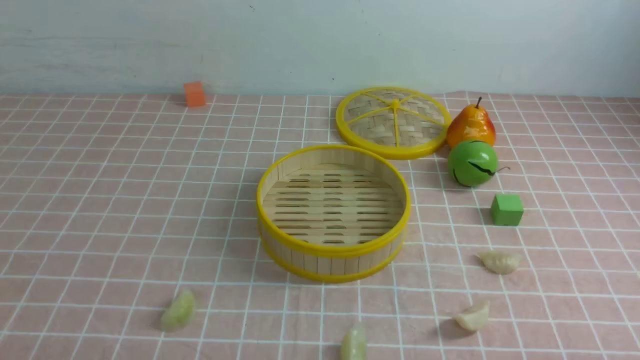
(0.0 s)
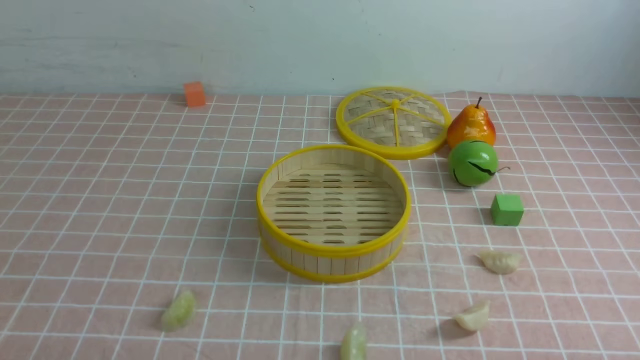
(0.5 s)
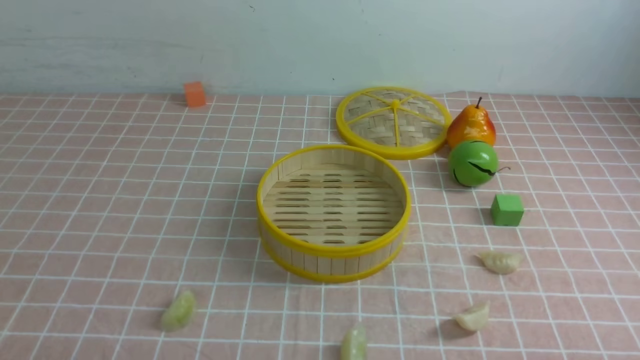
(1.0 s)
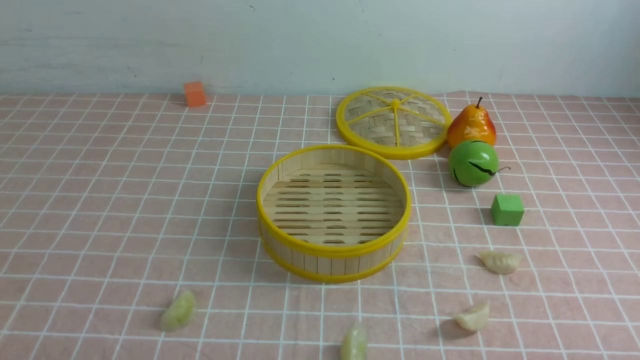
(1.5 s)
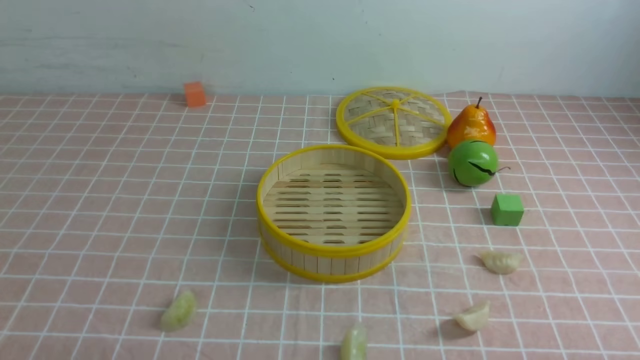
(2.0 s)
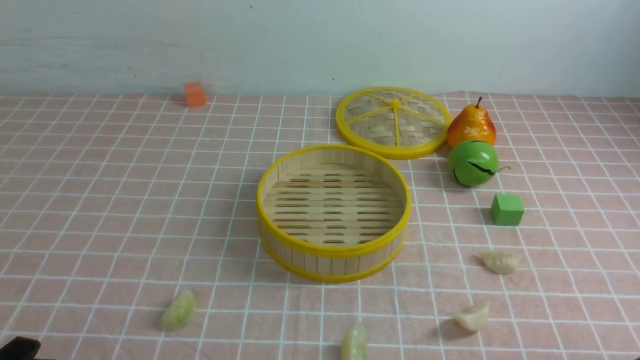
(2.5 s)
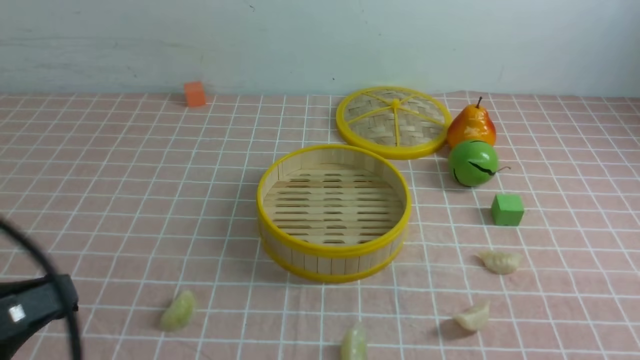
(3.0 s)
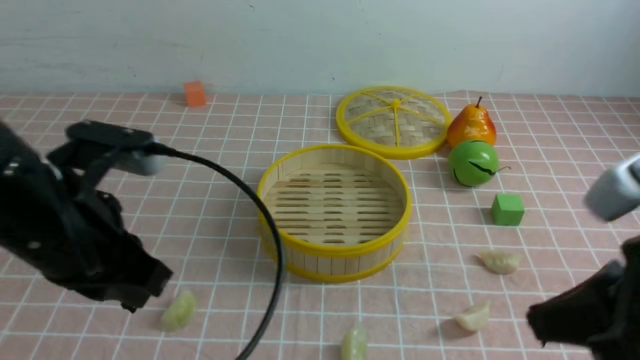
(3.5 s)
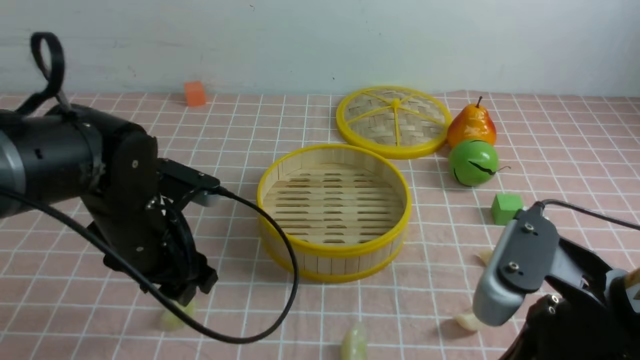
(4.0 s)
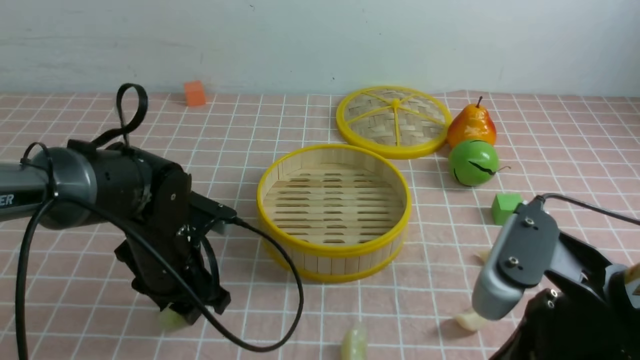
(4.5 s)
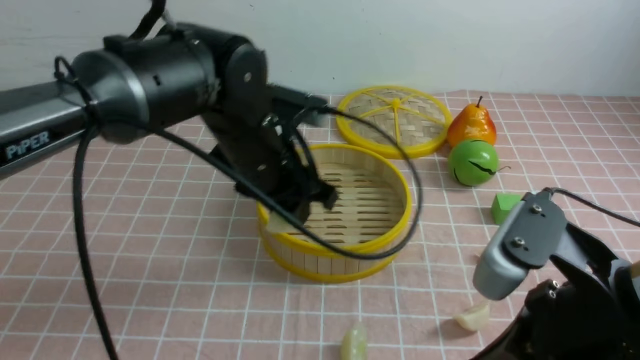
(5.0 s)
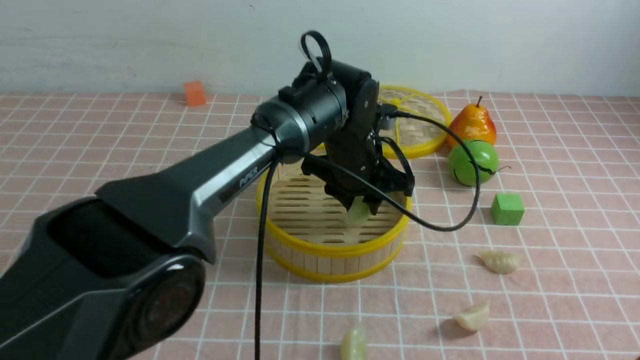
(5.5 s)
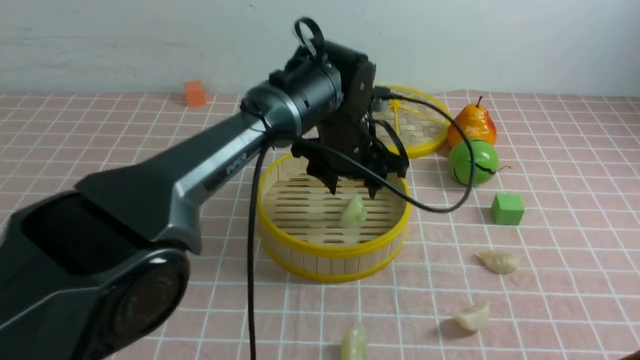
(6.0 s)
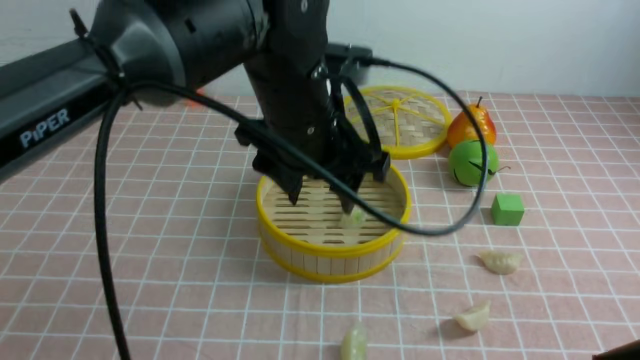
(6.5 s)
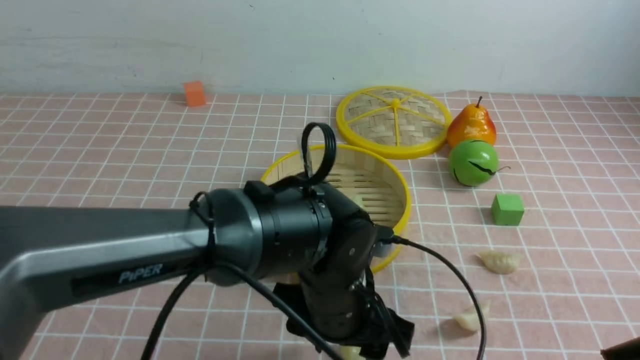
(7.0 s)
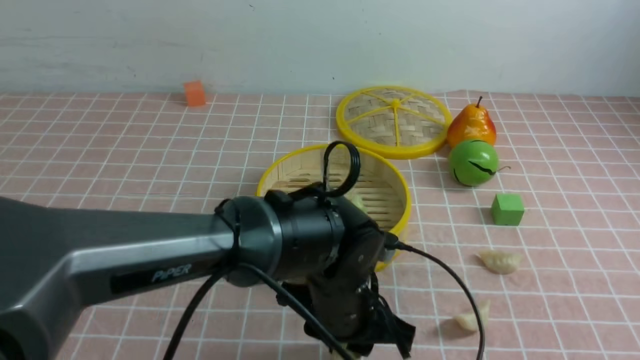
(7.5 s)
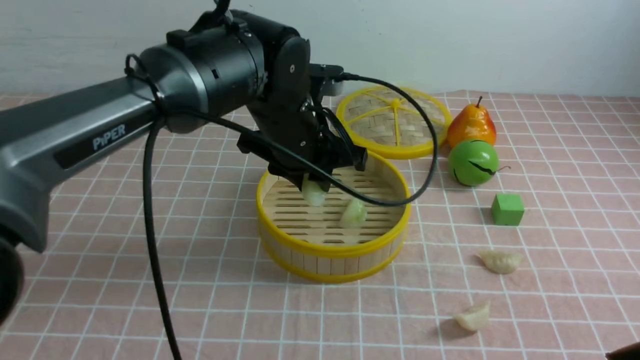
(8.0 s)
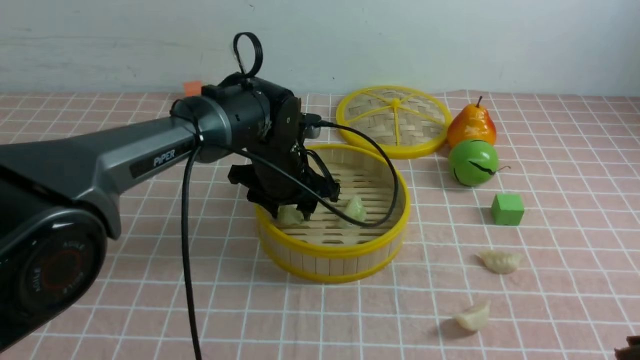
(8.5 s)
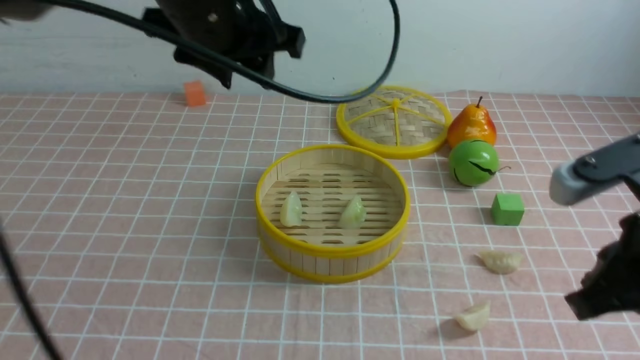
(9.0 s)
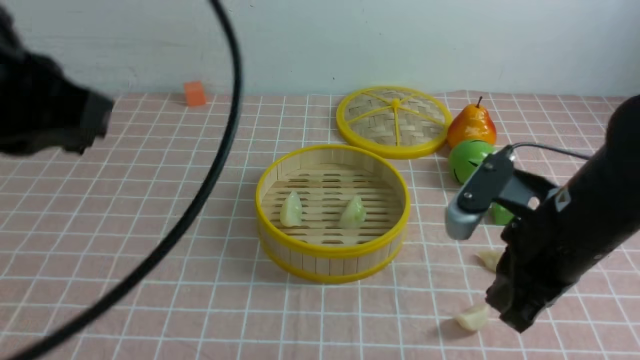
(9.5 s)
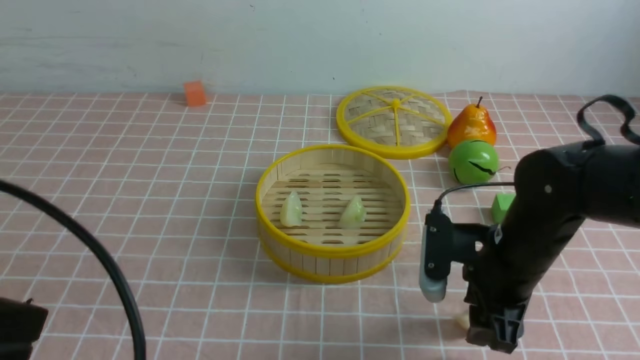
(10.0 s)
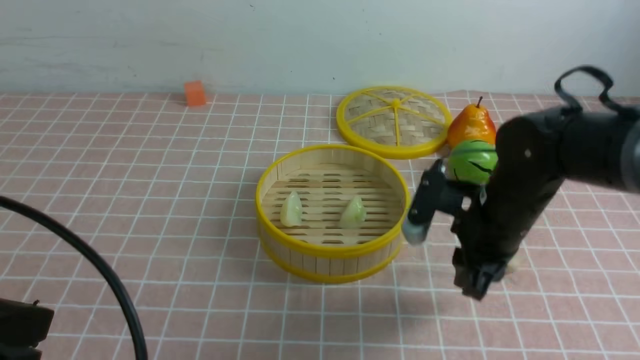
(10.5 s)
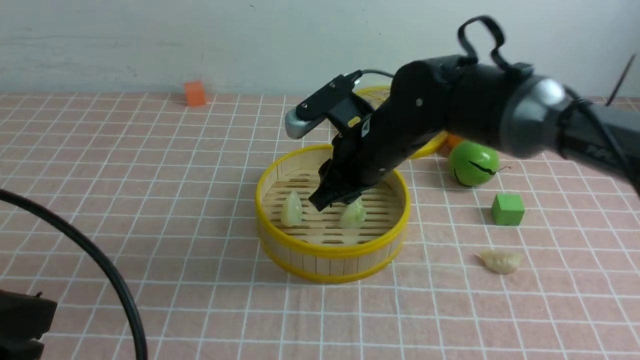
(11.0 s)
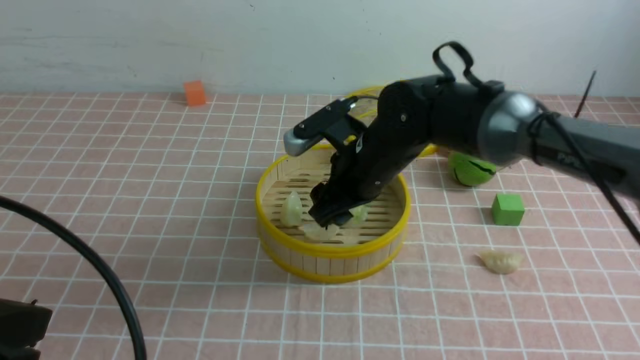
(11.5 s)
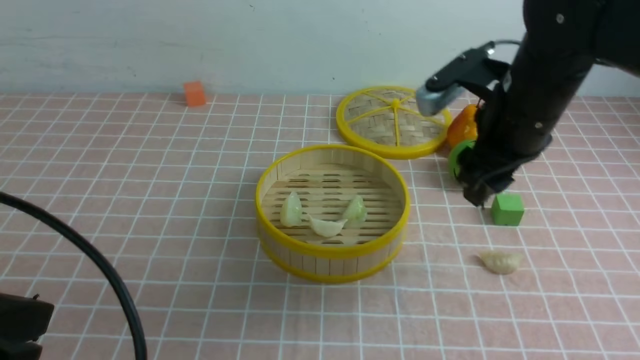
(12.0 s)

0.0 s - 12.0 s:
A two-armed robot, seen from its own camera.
Task of the whole recording: put the dumplings into the steamer on the table with the pink tablecloth.
Step, 0.0 s - 4.5 s: use the left arm to grab a dumpling.
Step, 5.0 s - 6.0 s: use the left arm to put the dumpling into the steamer.
Step, 6.5 s - 7.5 s: use the left arm to grab a dumpling.
Step, 8.0 s - 8.5 s: use the left arm to put the dumpling into the steamer.
Step, 9.0 s - 10.5 s: use the right arm to grab a dumpling.
Step, 11.0 s - 11.5 s: use the right arm to put the dumpling into the steamer.
2.0 s - 4.0 s: The left gripper heads forward, covering approximately 25 cm, and closes, then reopens; the right gripper shifts about 20 cm to the left, upward and forward, and closes its fingers.
4.0 s - 6.0 s: The right gripper goes roughly 10 cm backward and upward. Meanwhile the left gripper moves to the right and forward, about 20 cm.
6.0 s - 8.0 s: The left gripper moves approximately 15 cm backward and comes back, and closes up.
8.0 s - 10.0 s: The right gripper travels forward and downward by roughly 25 cm, and opens up; the left gripper travels backward and to the left by about 35 cm, and closes its fingers.
10.0 s - 12.0 s: The right gripper heads upward and forward, covering some 15 cm, and travels to the left and back again, about 10 cm each way.

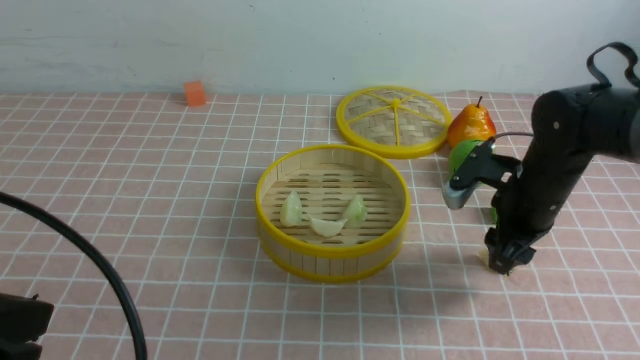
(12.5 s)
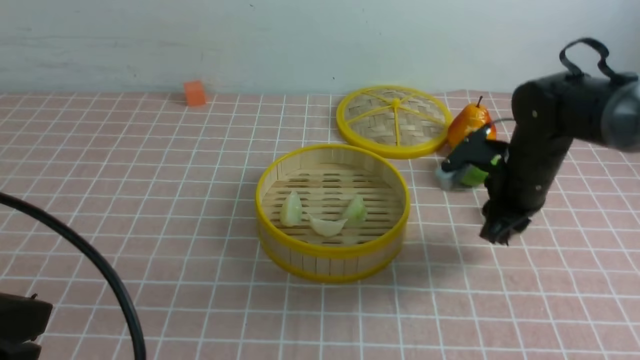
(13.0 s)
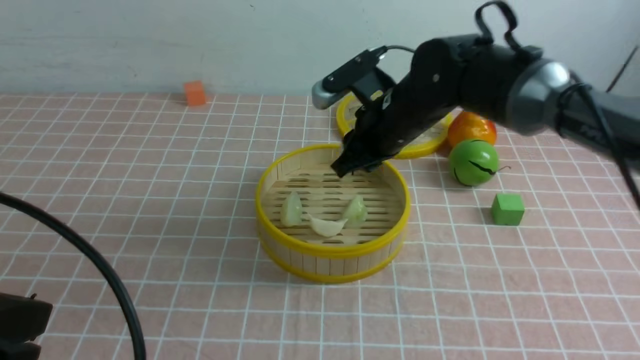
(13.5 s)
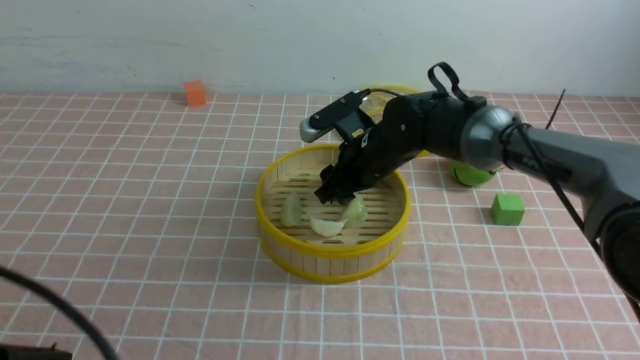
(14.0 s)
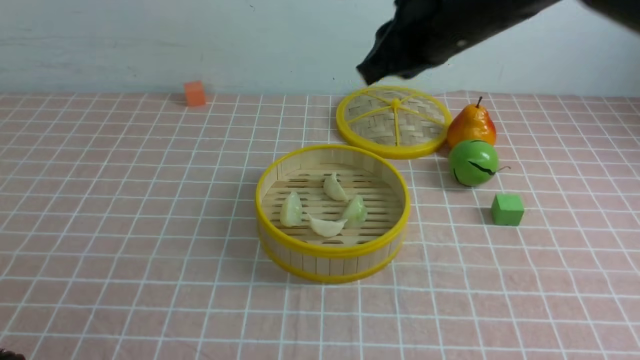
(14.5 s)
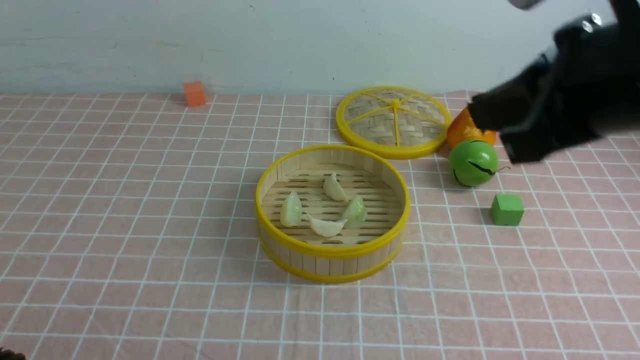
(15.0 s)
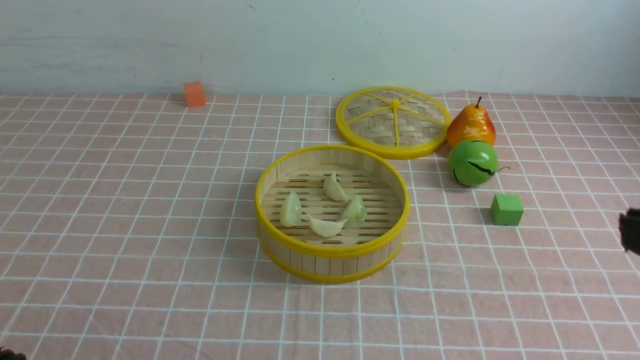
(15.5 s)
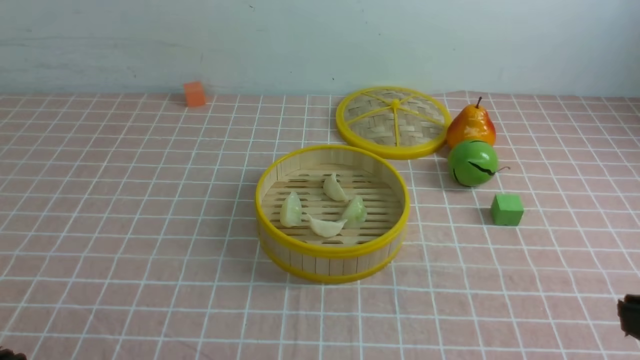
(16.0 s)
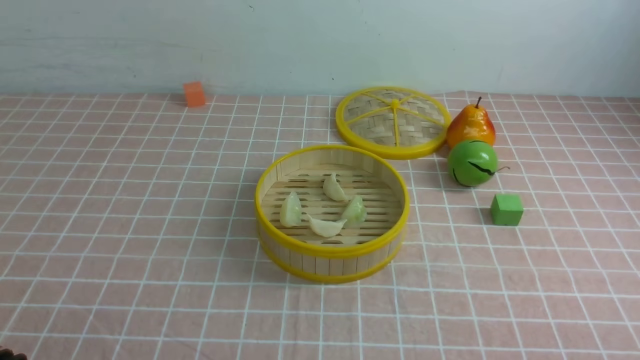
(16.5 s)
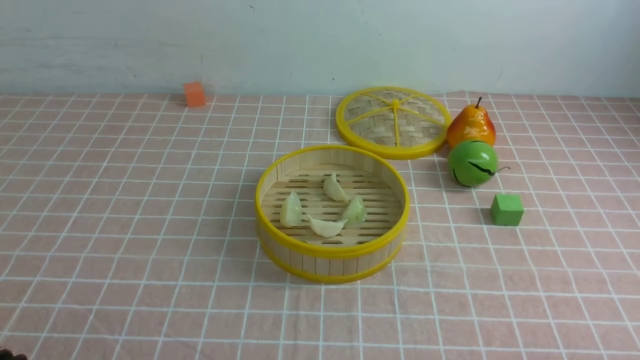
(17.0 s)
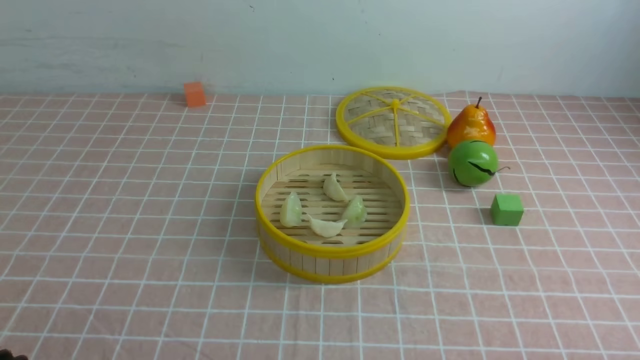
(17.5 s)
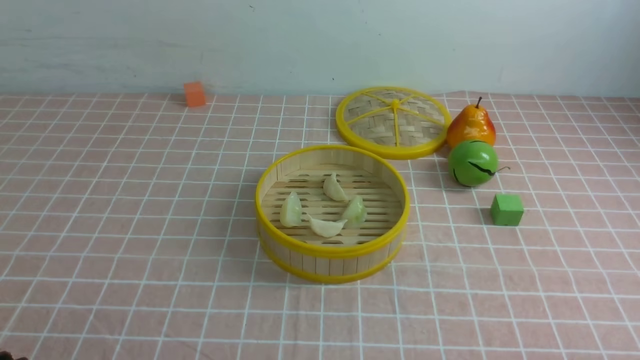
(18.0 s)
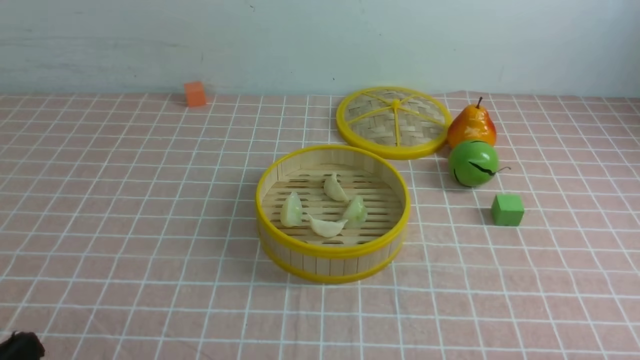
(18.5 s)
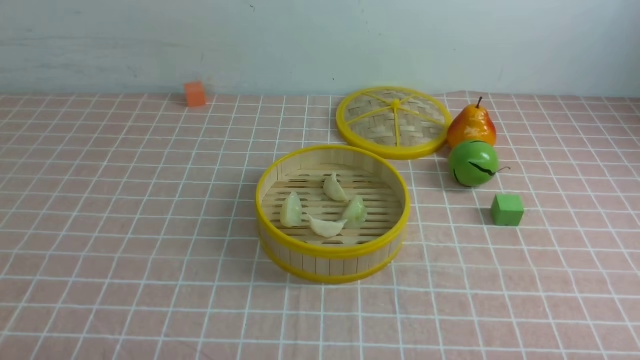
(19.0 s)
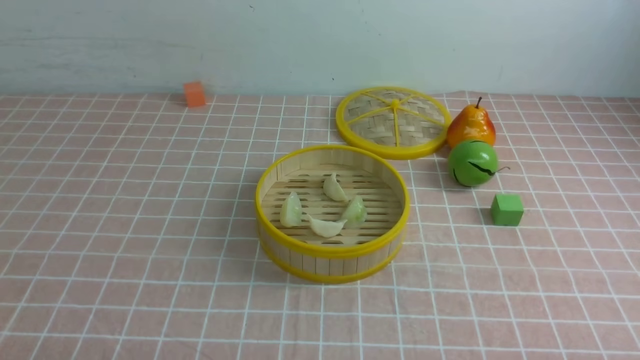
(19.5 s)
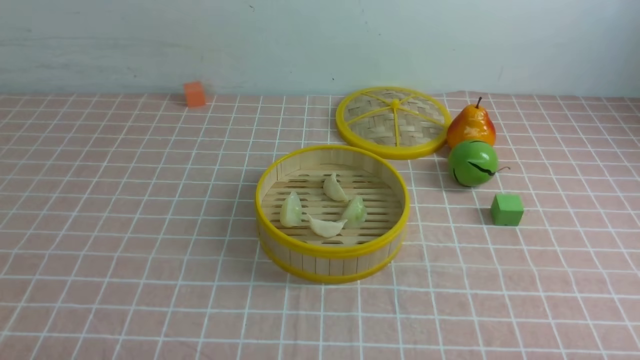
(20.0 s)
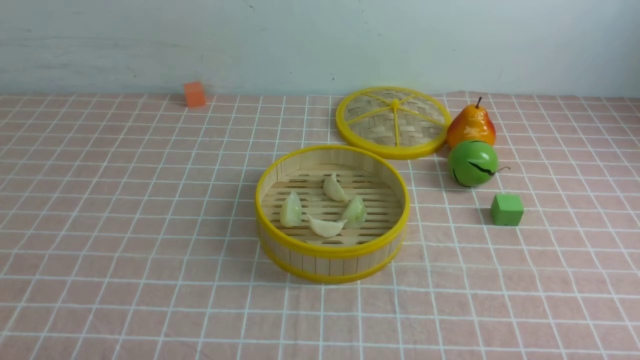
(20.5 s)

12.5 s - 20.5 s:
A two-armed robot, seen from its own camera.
Task of the whole recording: put the dumplings into the steamer on the table with the pink tablecloth.
Step, 13.5 s - 14.0 s: use the right arm to put the dumpling into the steamer.
12.5 s - 14.5 s: The left gripper shifts about 10 cm downward and backward, while the right gripper travels upward and to the left by approximately 25 cm, and closes.
14.5 s - 16.5 s: The right gripper travels backward, downward and to the right by approximately 40 cm.
